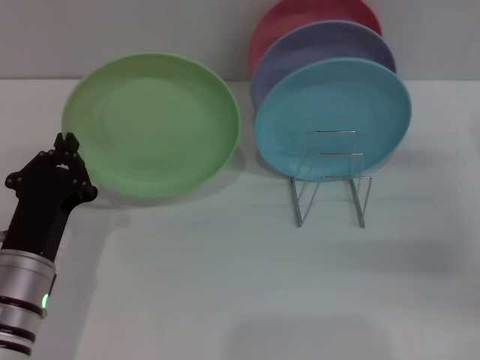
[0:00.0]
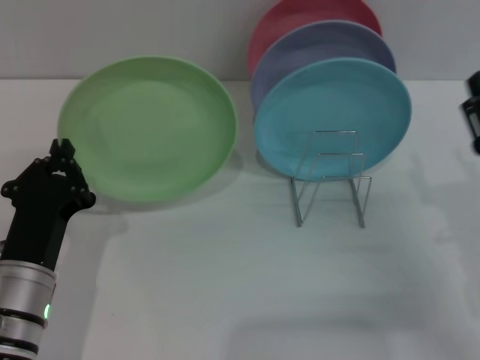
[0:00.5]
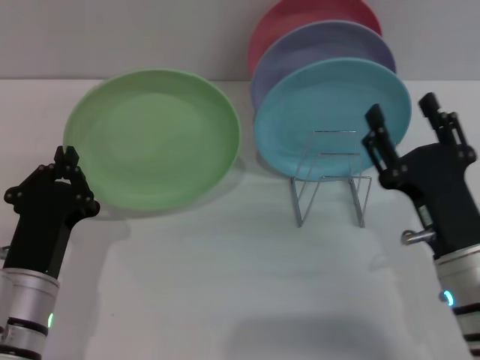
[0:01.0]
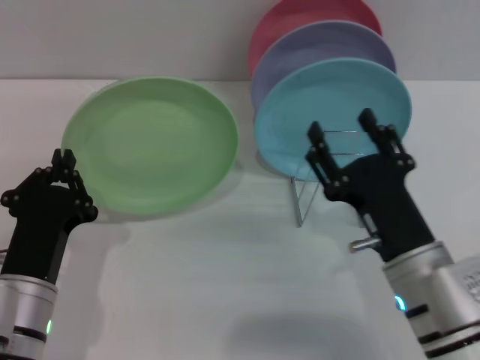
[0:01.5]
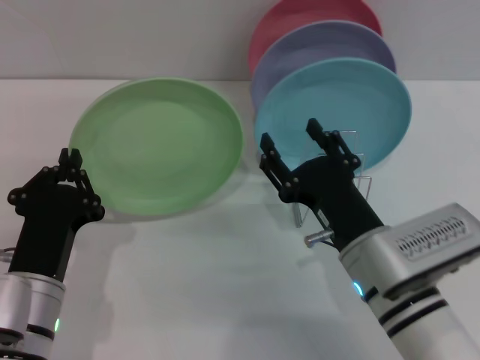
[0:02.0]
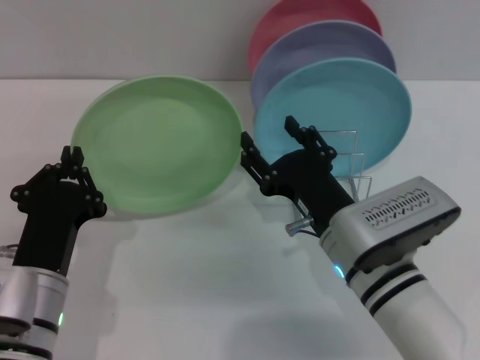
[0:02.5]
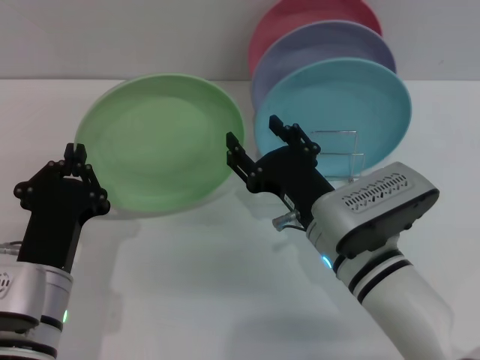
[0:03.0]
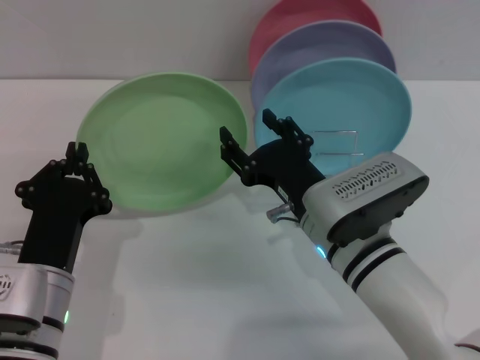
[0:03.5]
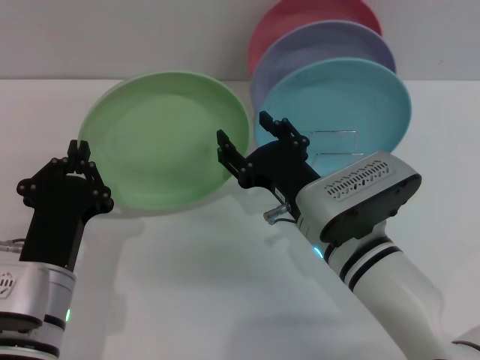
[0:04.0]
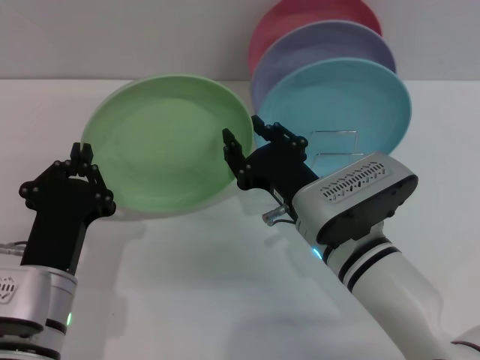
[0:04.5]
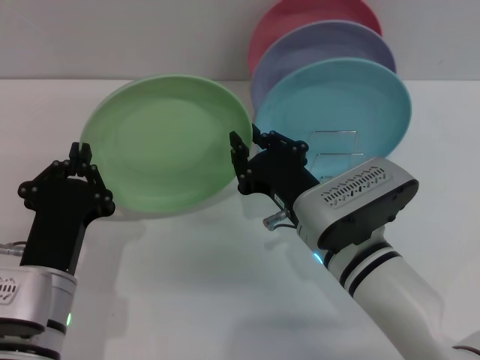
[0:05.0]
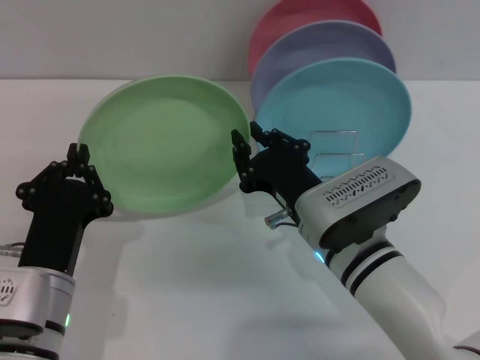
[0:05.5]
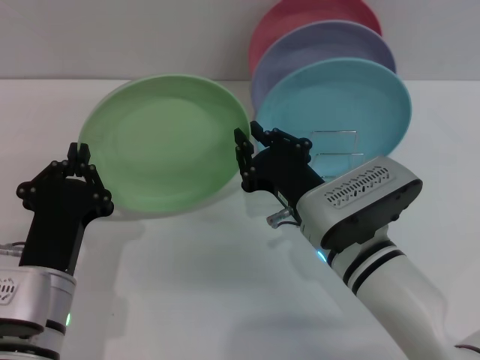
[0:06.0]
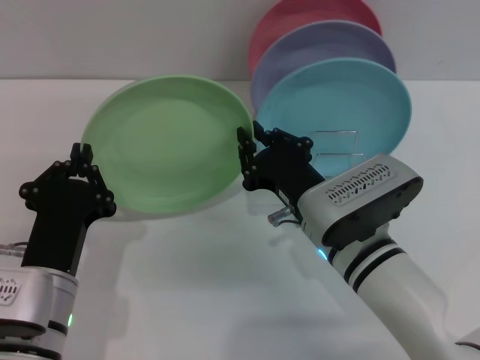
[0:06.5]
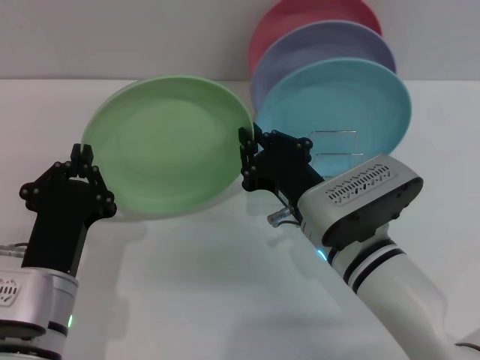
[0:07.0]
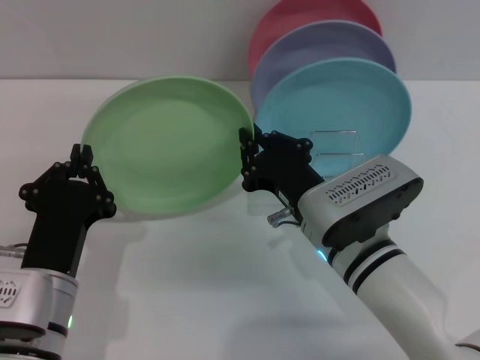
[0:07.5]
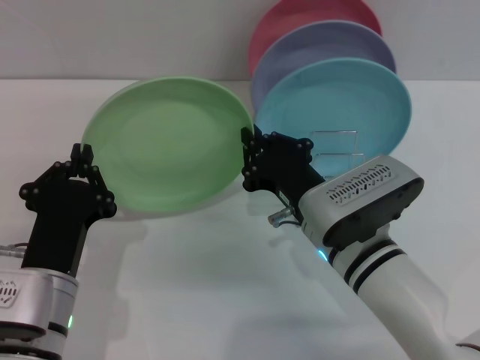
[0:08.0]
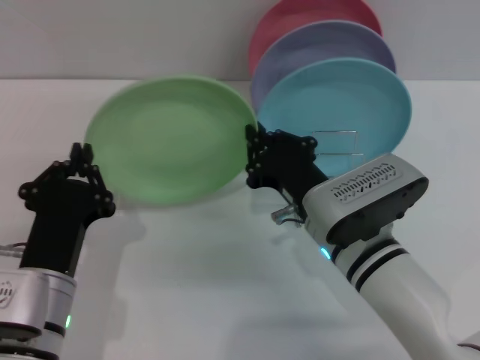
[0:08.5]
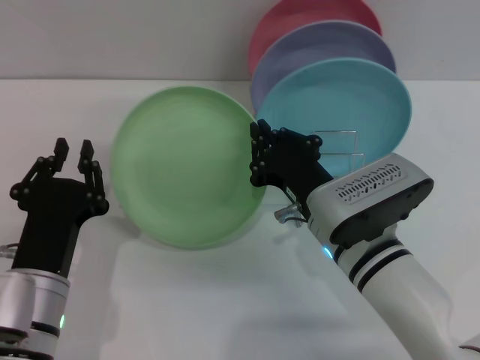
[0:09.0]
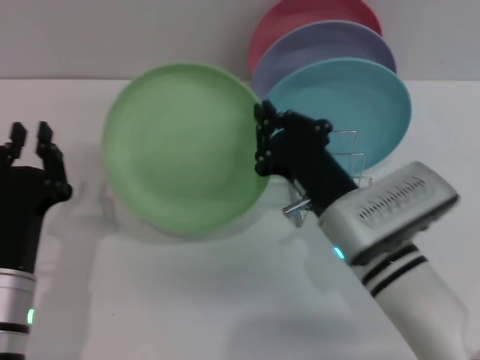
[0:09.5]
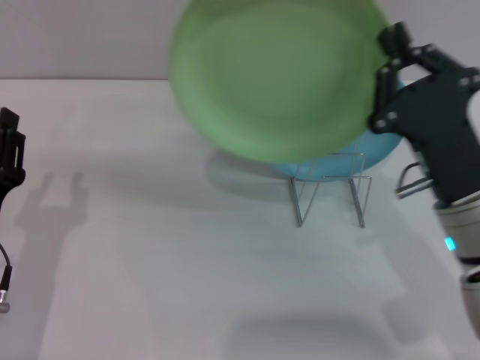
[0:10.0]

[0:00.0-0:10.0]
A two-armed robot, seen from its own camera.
Task of the whole recording: Grip the plate with one hand, pass it to the other, then set it on the shelf.
Step, 0:00.0 to 0:09.5: Pass the plate from the left gripper to the right gripper.
0:00.0 to 0:02.0: The right gripper goes about 20 cm to the left.
0:02.0 to 0:04.0: The right gripper changes place by about 5 cm.
0:04.0 to 0:06.0: The right gripper closes.
0:06.0 to 0:08.0: Neither gripper changes place.
0:08.0 to 0:10.0: The left gripper is displaced to the left by approximately 5 cm, and opens its fingers. The right gripper goes approximately 10 cm to the right.
